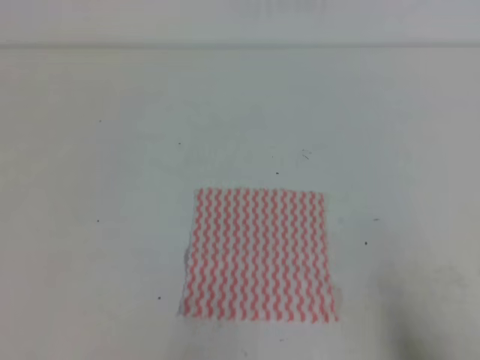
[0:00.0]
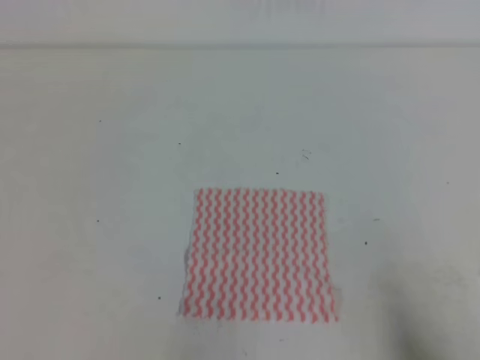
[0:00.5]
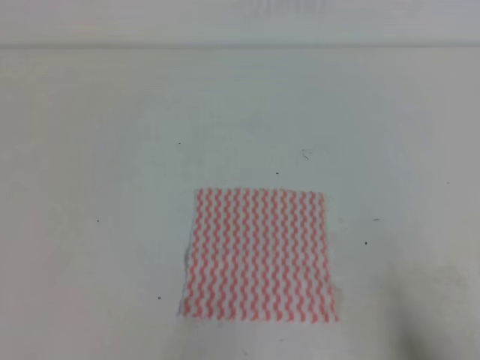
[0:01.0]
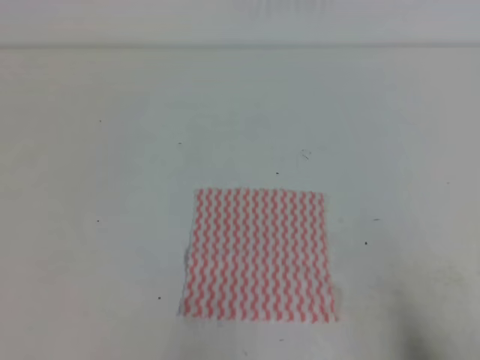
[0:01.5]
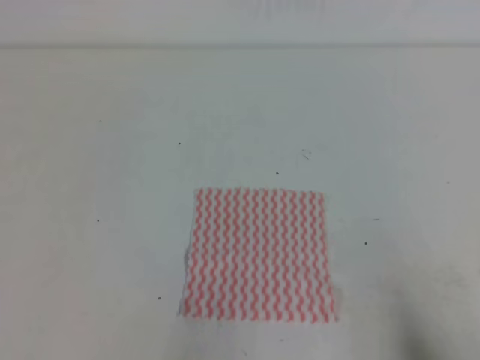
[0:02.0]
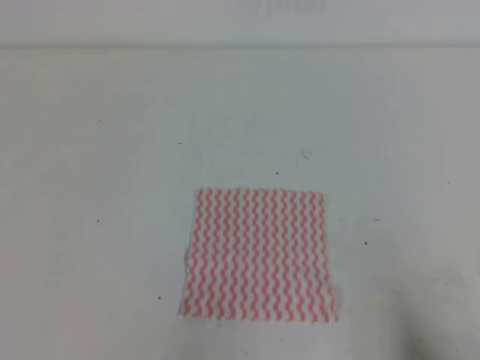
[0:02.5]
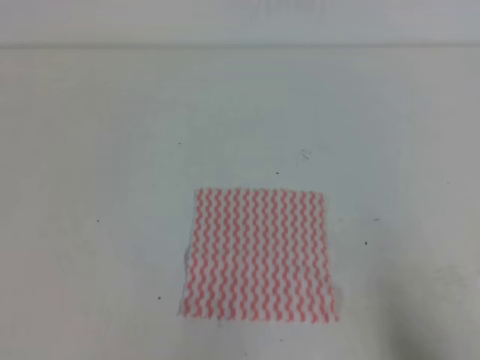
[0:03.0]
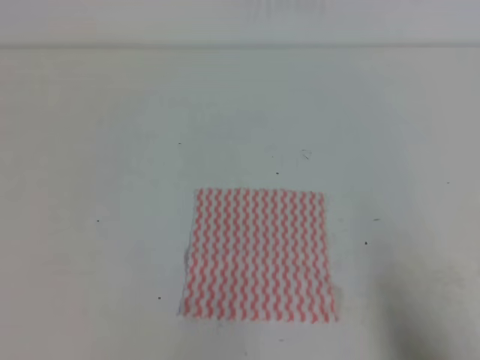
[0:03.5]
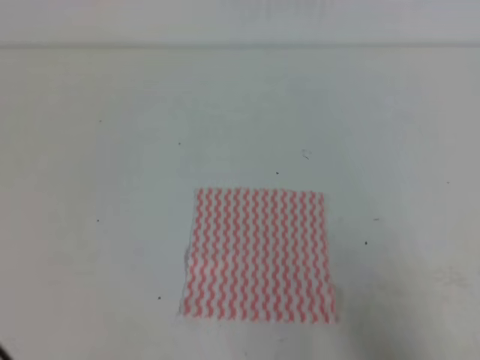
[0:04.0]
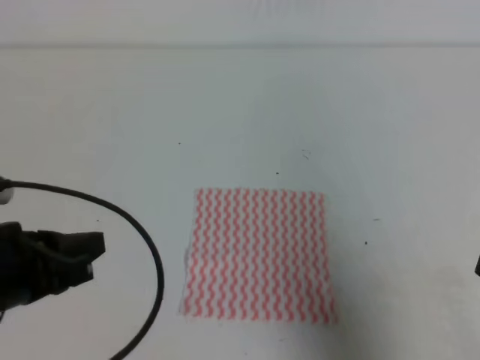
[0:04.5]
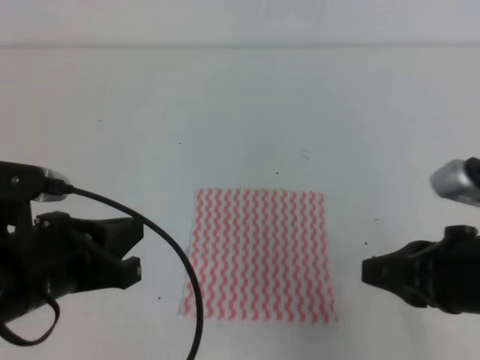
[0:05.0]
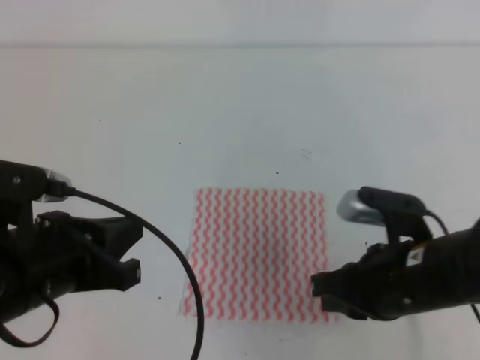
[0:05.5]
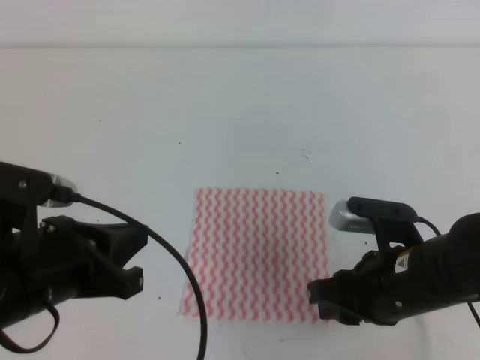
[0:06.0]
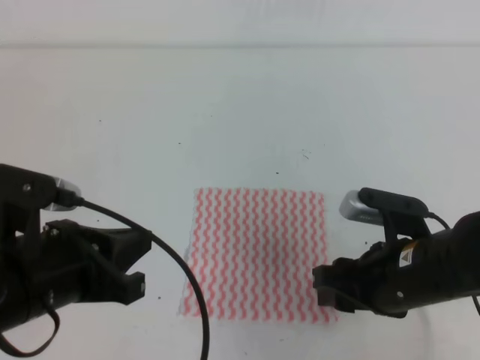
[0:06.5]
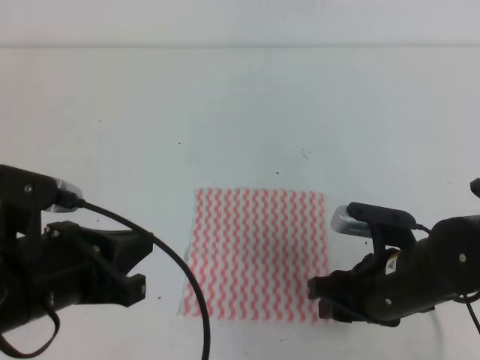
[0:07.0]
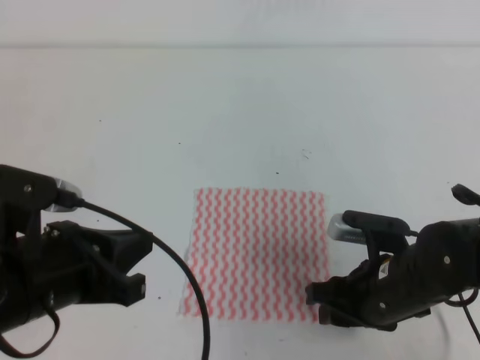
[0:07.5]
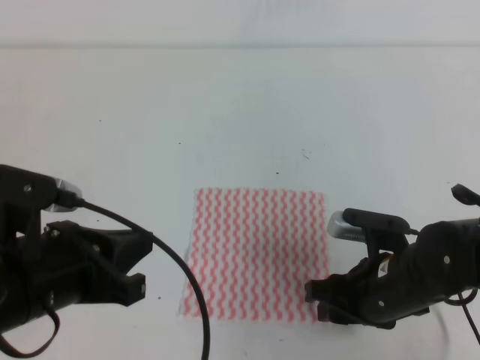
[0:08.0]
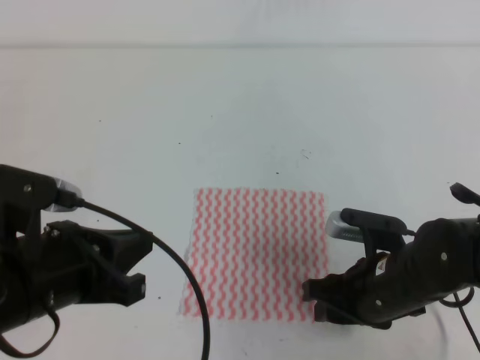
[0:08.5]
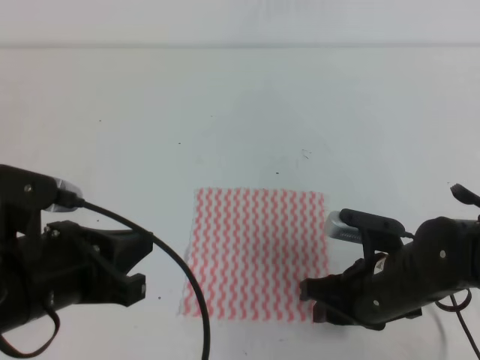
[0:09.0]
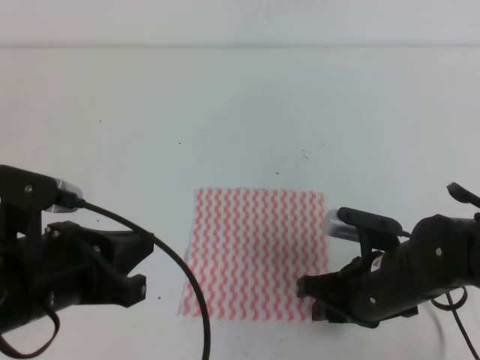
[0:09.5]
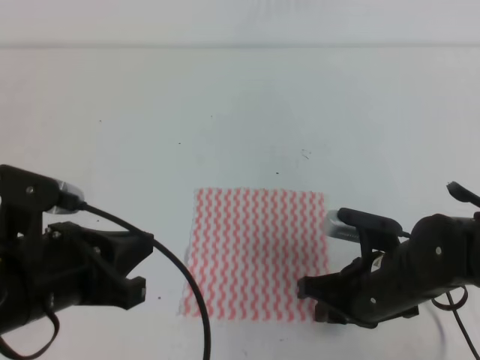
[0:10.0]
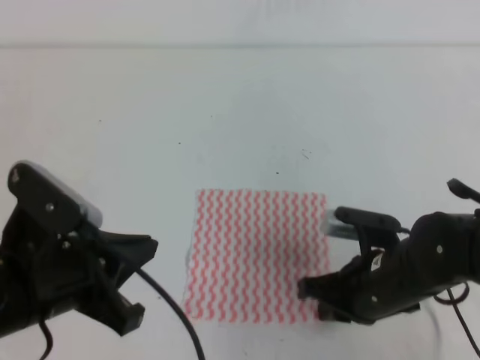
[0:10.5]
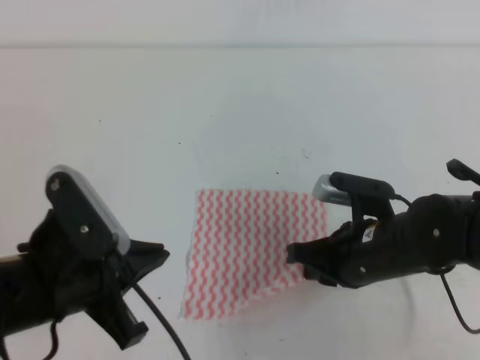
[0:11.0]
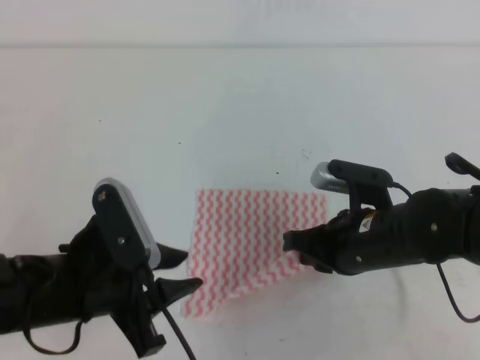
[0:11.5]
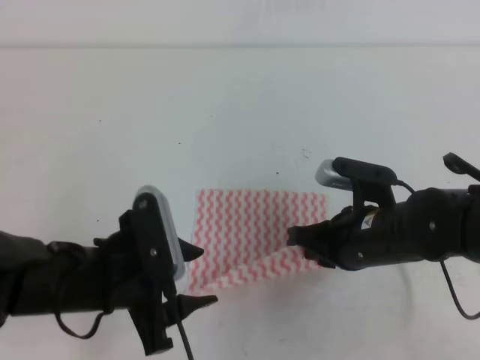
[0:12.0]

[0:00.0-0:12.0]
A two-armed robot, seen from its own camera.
0:02.0 to 0:04.0: The grippers both shift upward by approximately 5 cm.
0:04.0 to 0:06.0: The left gripper shifts approximately 10 cm forward and to the right. The right gripper moves to the left and forward, roughly 20 cm, and opens its fingers.
0:06.0 to 0:08.0: The right gripper opens its fingers.
0:08.0 to 0:10.0: The right gripper closes.
0:10.0 to 0:12.0: The right gripper ends up roughly 5 cm from where it was. The left gripper heads downward, covering some 5 cm, and opens up.

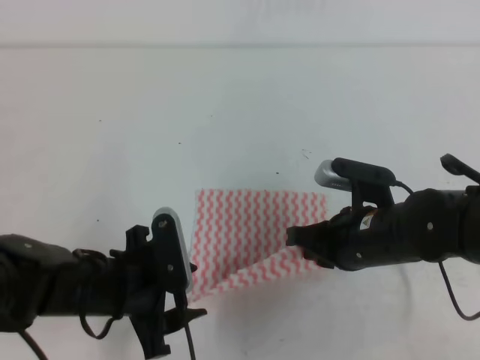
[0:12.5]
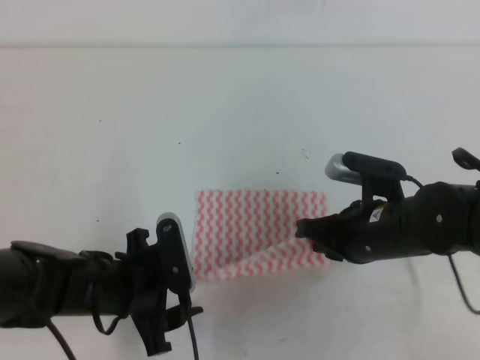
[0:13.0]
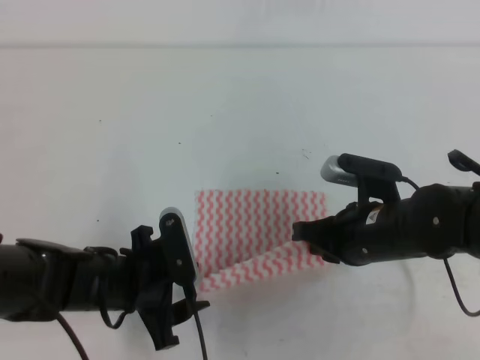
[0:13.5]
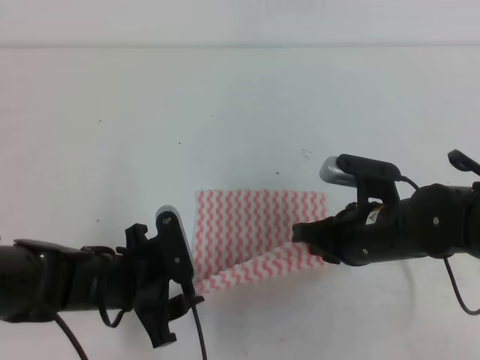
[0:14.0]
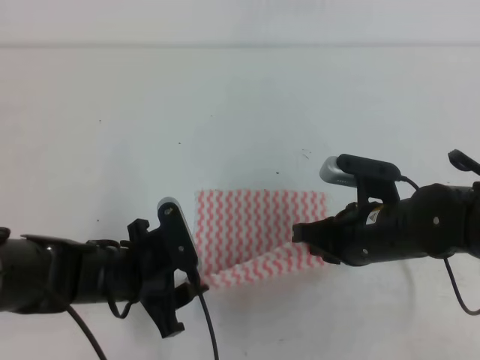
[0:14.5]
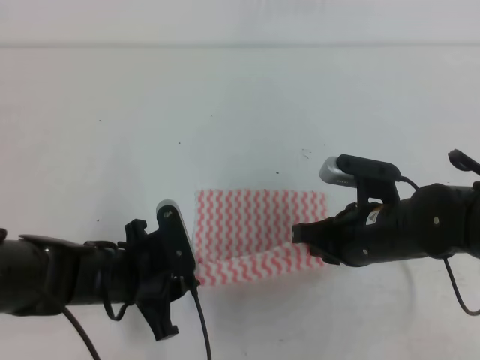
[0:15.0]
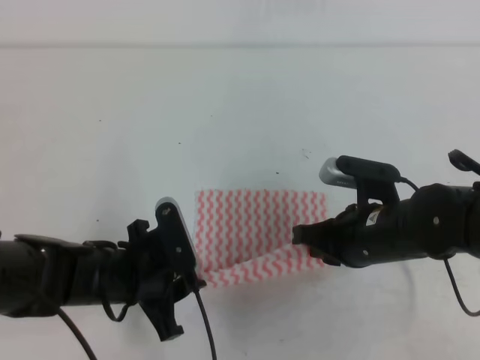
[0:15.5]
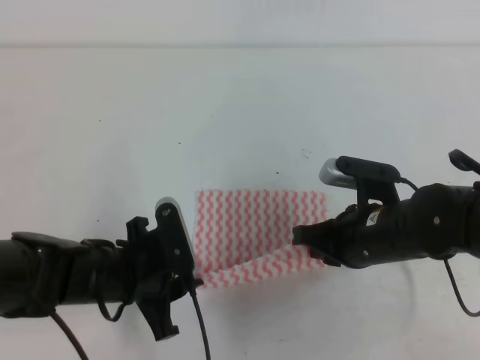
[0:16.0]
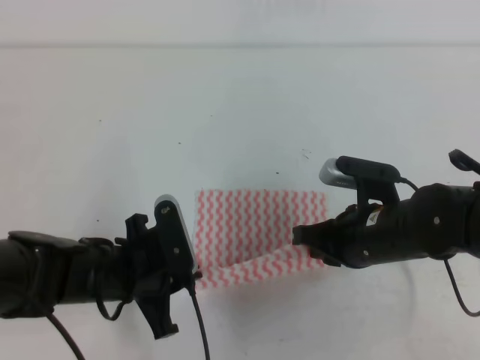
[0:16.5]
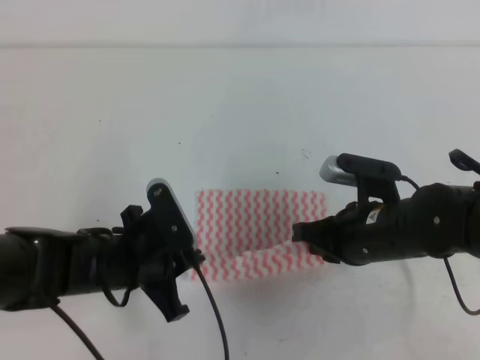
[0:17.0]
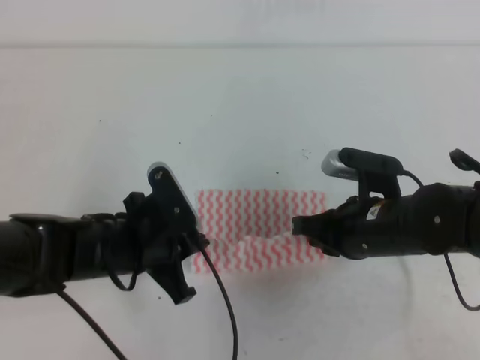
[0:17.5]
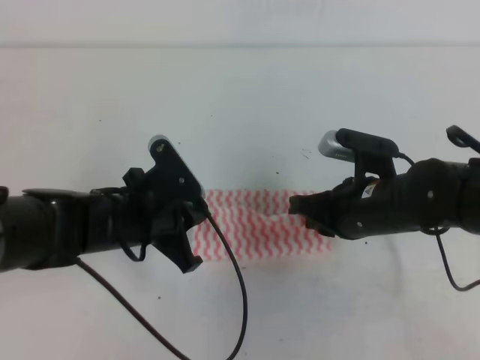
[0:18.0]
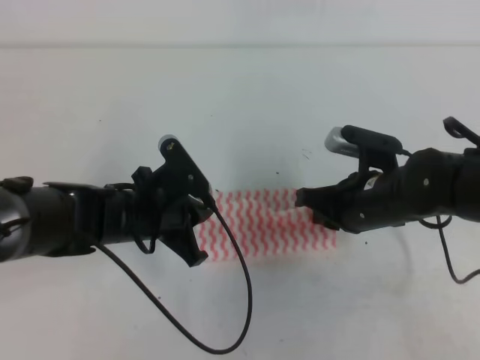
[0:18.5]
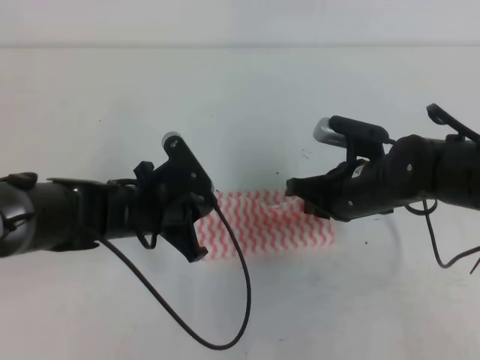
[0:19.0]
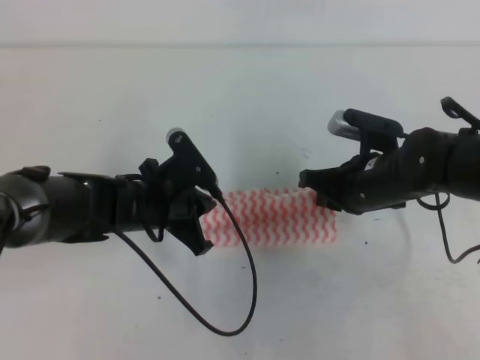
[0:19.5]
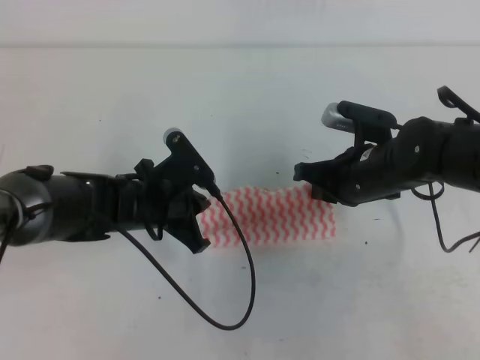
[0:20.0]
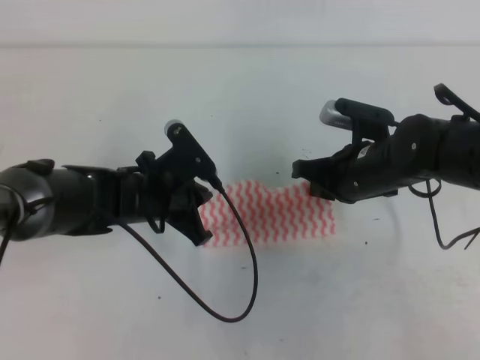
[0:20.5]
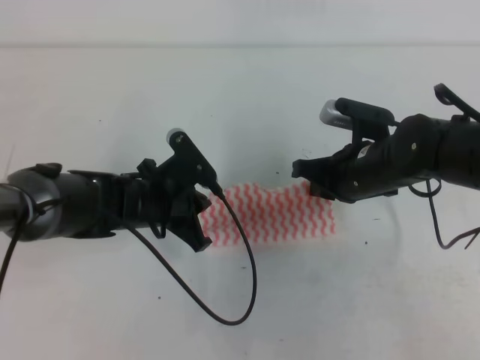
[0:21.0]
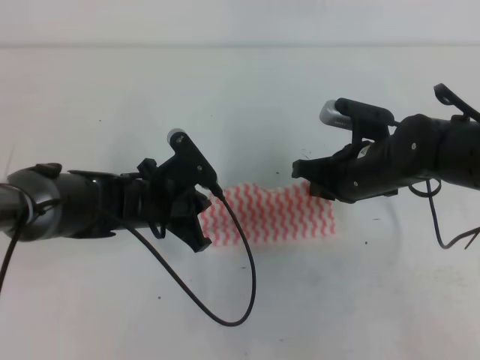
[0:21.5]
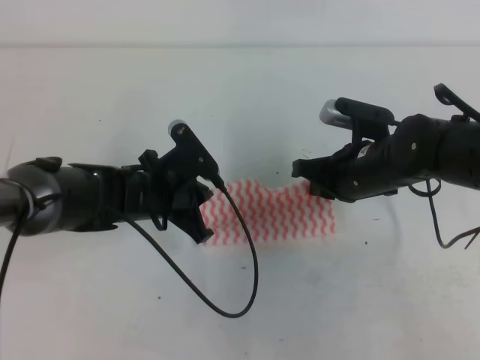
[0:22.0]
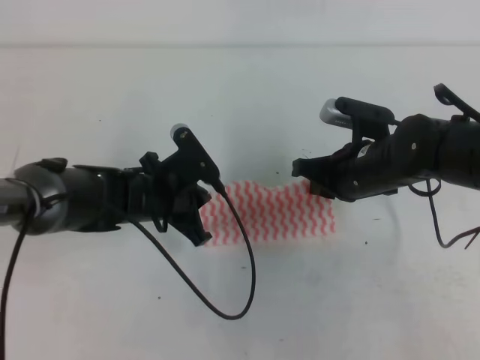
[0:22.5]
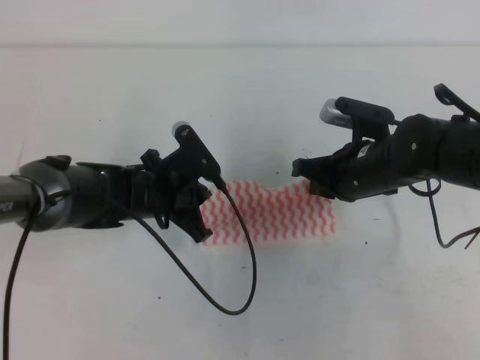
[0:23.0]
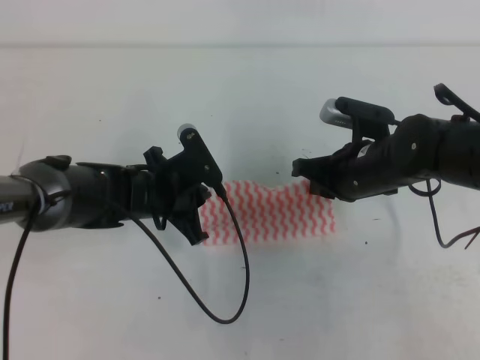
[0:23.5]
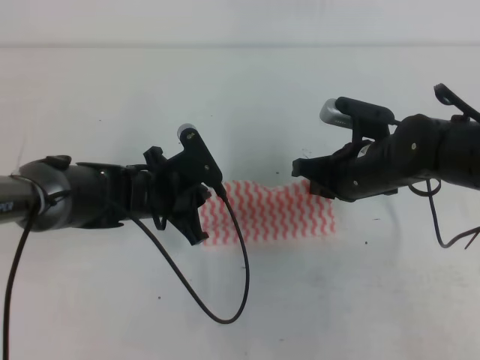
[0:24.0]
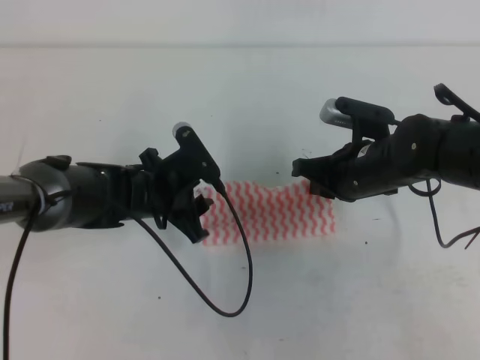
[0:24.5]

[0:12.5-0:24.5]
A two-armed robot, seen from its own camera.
0:12.5 to 0:14.5: The grippers make only small movements.
0:14.5 to 0:16.5: The left gripper closes.
0:16.5 to 0:18.5: The left gripper is displaced forward by approximately 5 cm.
0:18.5 to 0:20.5: The grippers make only small movements.
0:20.5 to 0:22.5: Neither gripper changes place.
0:22.5 to 0:24.5: The left gripper opens its fingers.

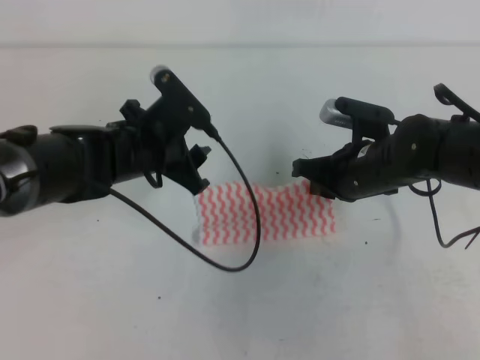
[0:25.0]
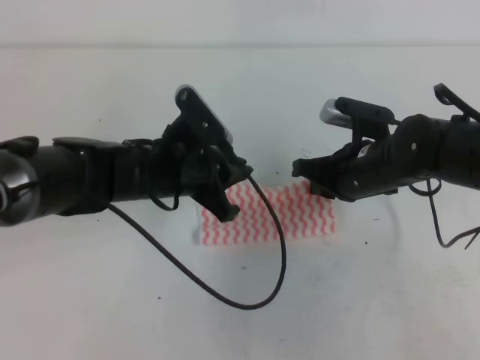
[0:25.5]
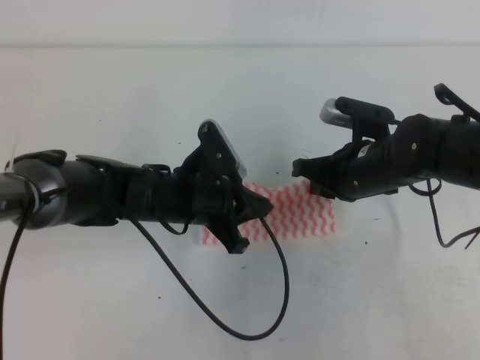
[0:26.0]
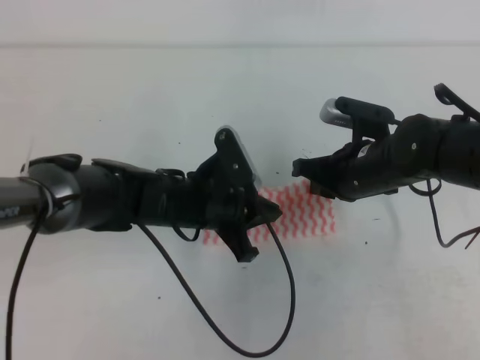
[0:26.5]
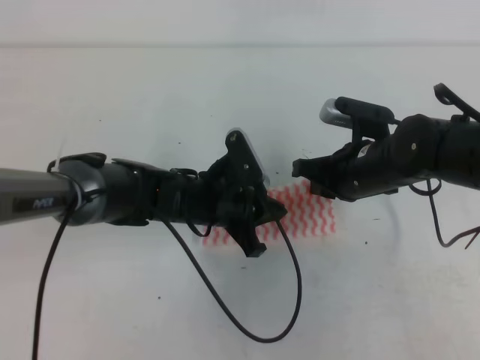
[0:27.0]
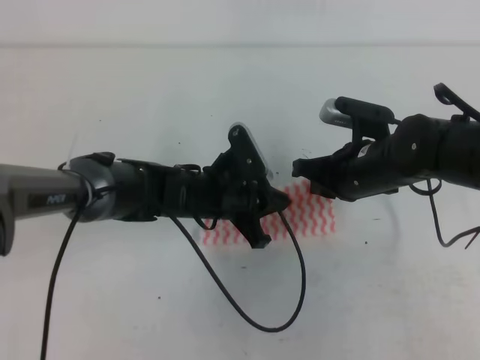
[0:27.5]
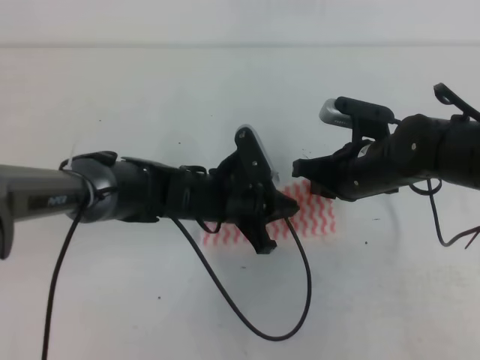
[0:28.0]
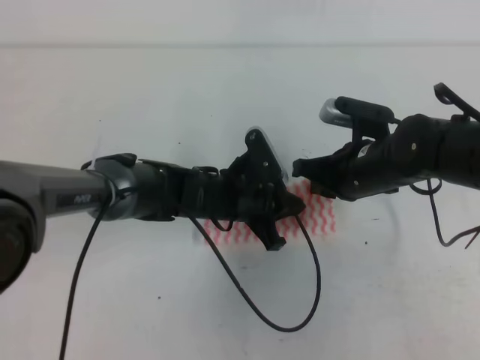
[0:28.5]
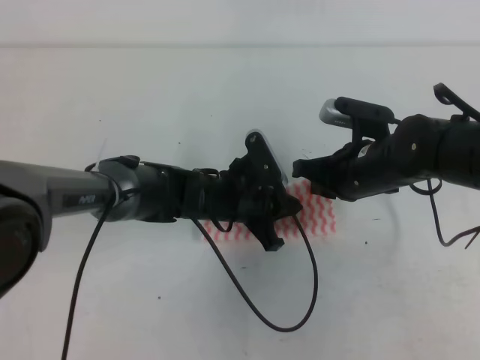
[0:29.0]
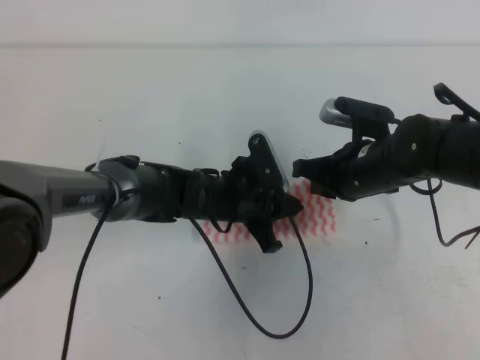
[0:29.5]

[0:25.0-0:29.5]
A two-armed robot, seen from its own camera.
0:25.0 to 0:27.0: The left gripper goes approximately 10 cm to the right and downward, and closes up.
0:27.0 to 0:29.5: The grippers move only a little.
